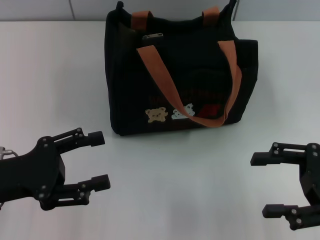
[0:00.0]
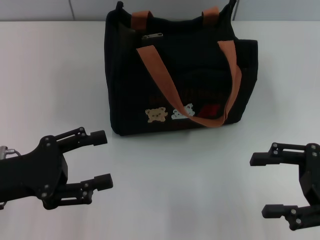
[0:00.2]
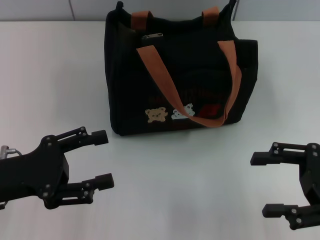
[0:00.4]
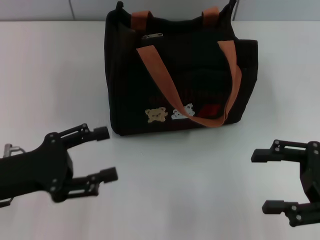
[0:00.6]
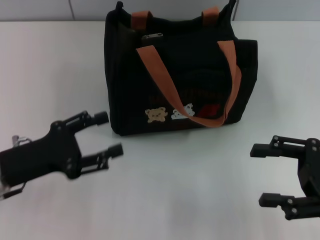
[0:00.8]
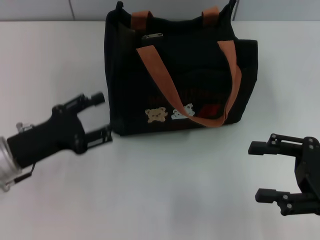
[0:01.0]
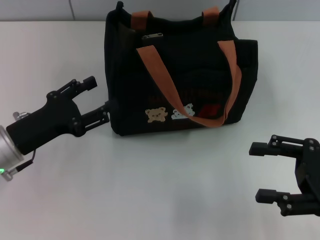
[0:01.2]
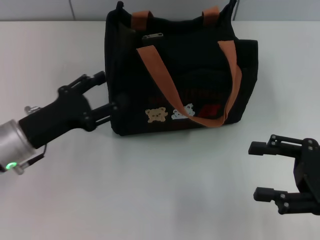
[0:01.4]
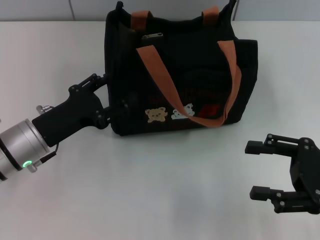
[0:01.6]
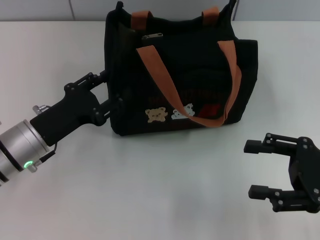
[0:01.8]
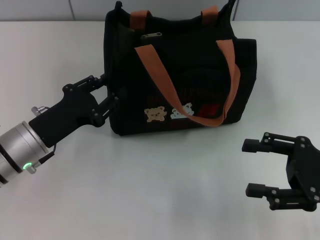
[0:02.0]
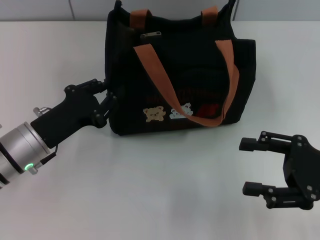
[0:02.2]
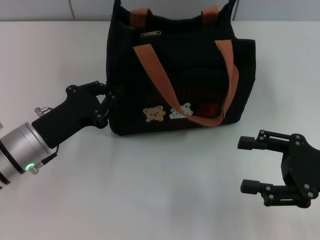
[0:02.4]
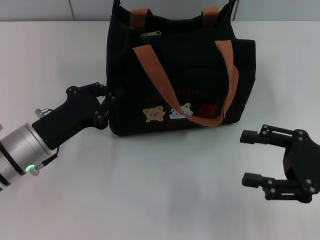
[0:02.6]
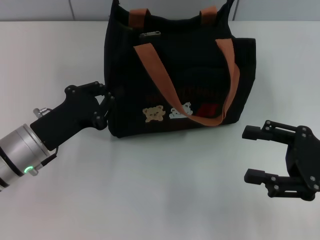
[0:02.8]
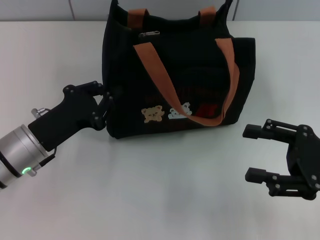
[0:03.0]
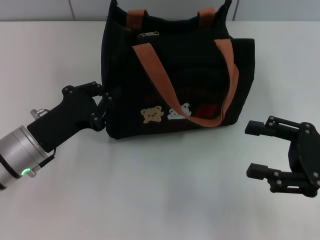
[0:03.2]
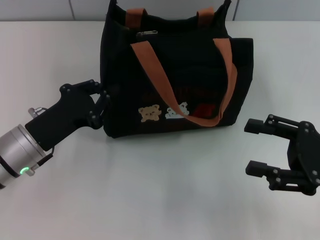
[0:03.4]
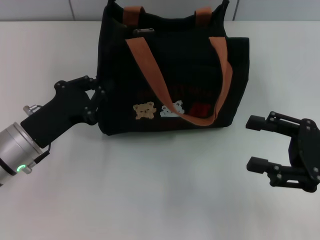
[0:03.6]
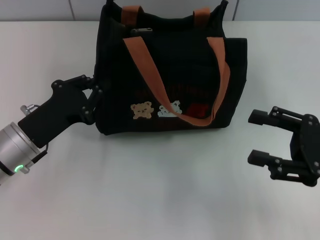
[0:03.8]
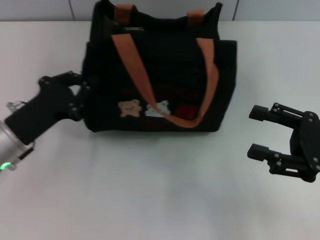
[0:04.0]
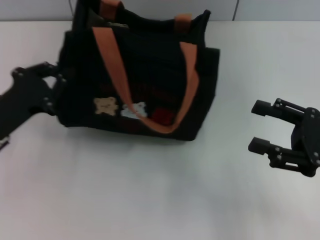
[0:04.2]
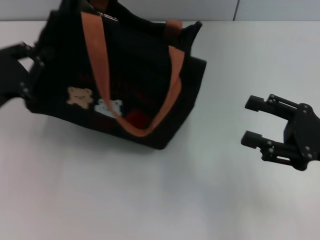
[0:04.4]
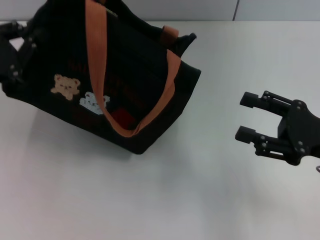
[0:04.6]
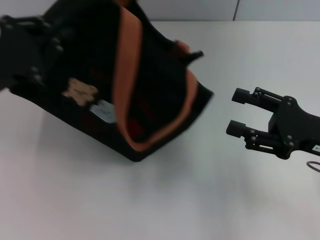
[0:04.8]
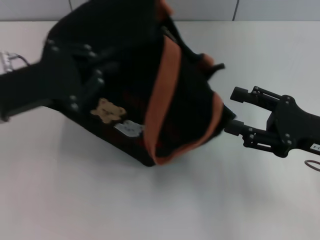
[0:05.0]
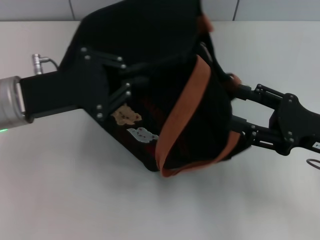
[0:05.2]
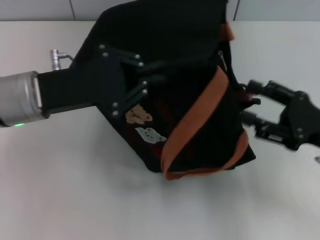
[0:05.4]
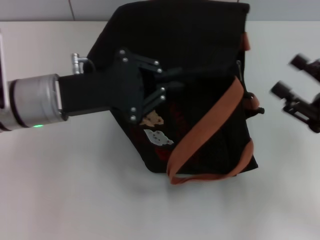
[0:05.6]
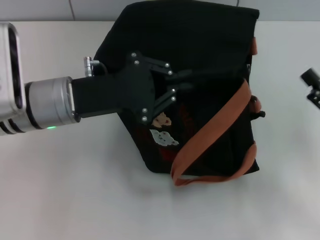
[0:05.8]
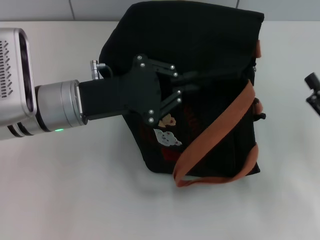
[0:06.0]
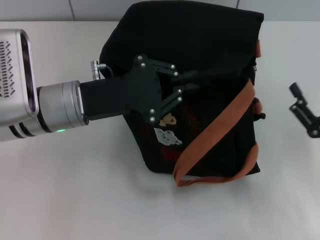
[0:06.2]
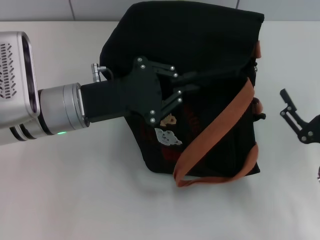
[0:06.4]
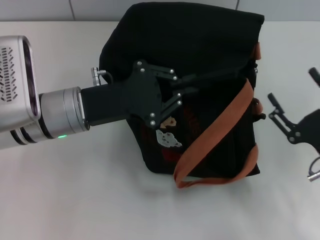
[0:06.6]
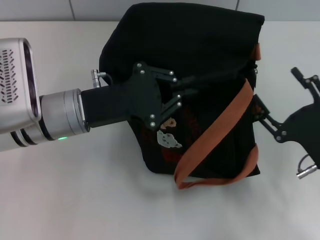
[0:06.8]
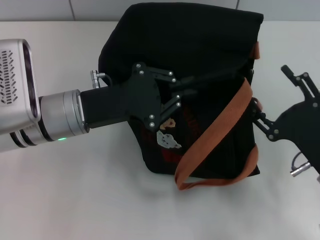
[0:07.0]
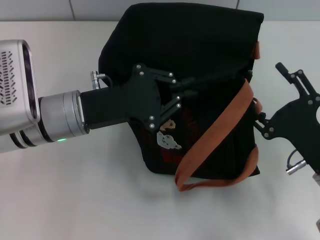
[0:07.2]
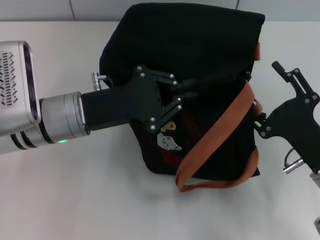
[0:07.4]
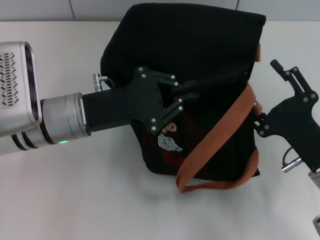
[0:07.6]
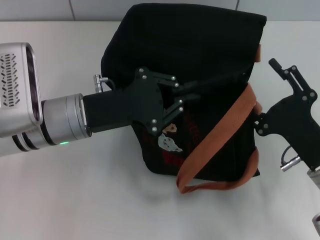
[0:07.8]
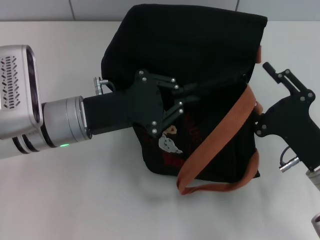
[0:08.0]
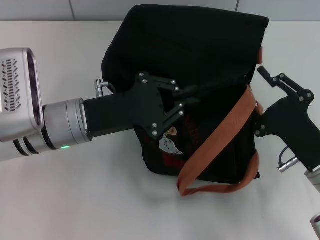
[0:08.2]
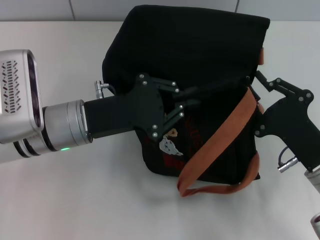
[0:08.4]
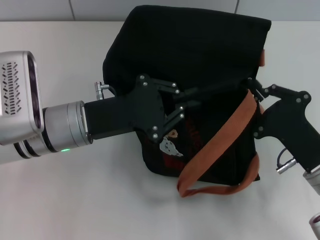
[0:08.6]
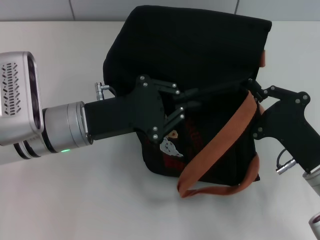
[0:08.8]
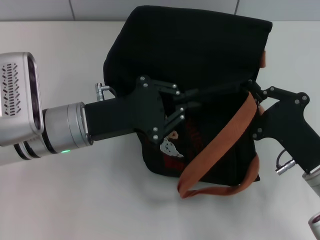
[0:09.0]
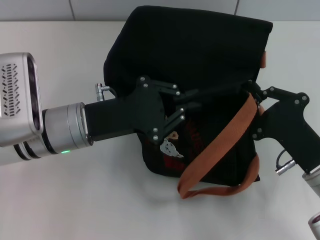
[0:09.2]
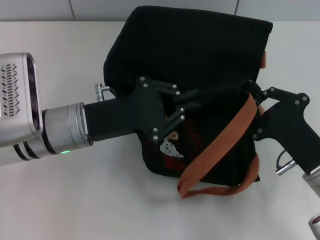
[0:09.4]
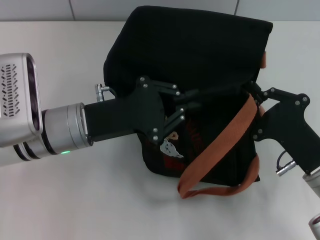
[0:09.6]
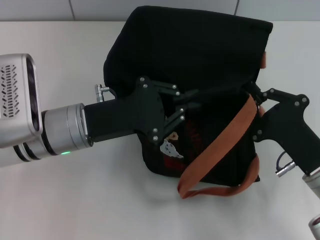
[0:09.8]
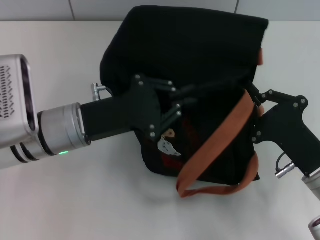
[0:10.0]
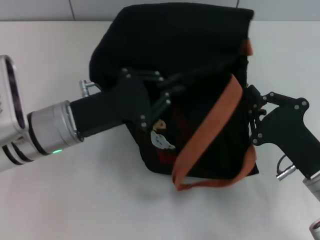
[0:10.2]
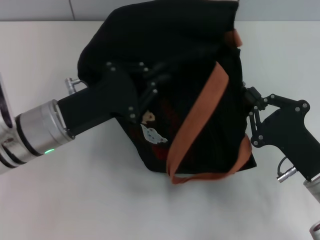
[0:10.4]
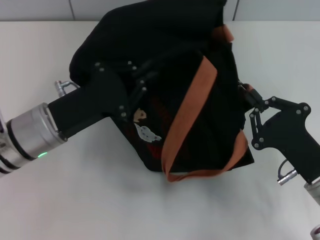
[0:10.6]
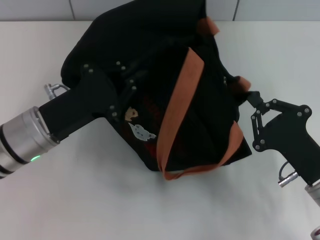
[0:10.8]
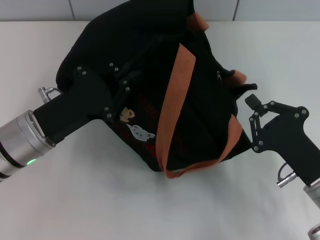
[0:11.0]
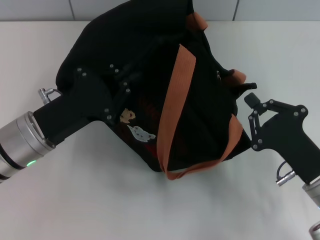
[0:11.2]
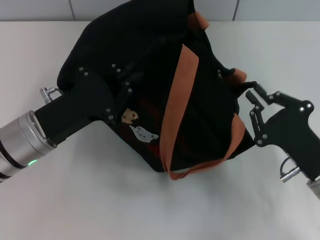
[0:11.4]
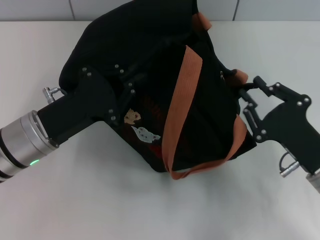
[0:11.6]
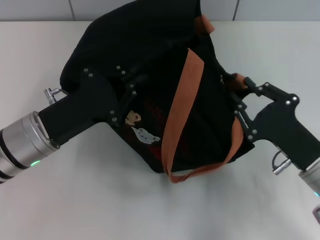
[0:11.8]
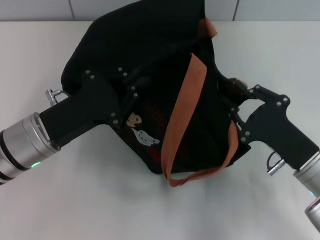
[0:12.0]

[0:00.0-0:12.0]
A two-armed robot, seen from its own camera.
0:00.0 to 0:01.6: The left gripper travels forward and to the right by approximately 10 cm.
0:01.6 to 0:03.0: The left gripper closes up.
0:03.0 to 0:04.4: The left gripper is displaced to the left and upward by roughly 10 cm.
0:04.4 to 0:06.0: The right gripper changes place by approximately 5 cm. The left gripper goes roughly 15 cm to the right.
0:06.0 to 0:07.6: The right gripper shifts roughly 5 cm to the left.
0:07.6 to 0:09.0: The right gripper closes its fingers.
0:10.4 to 0:12.0: The right gripper opens its fingers.

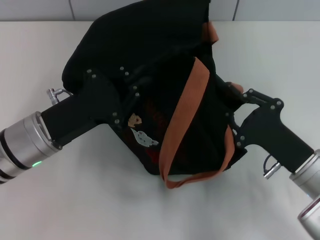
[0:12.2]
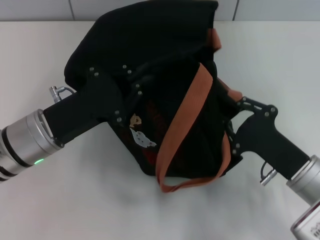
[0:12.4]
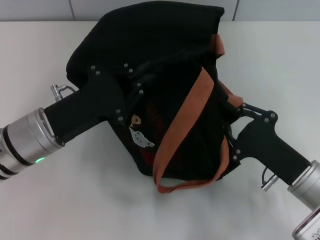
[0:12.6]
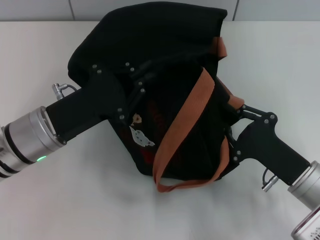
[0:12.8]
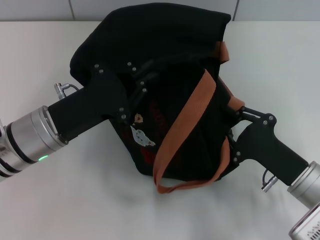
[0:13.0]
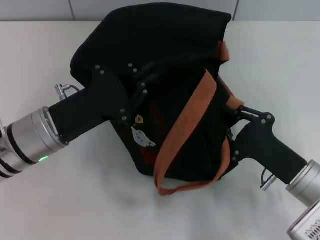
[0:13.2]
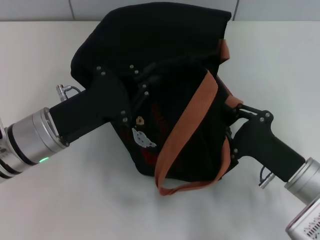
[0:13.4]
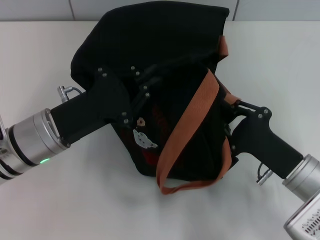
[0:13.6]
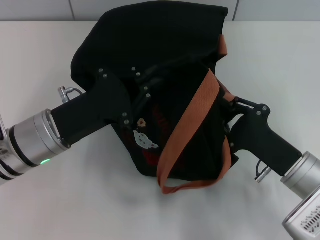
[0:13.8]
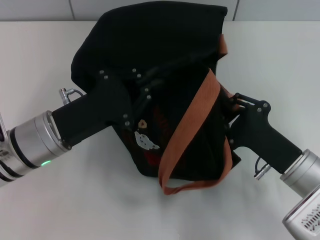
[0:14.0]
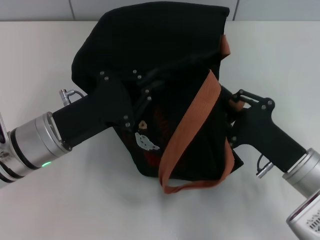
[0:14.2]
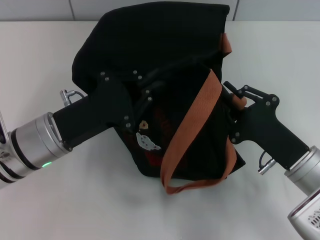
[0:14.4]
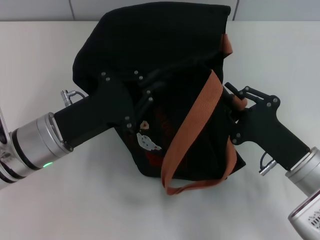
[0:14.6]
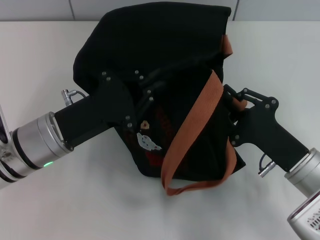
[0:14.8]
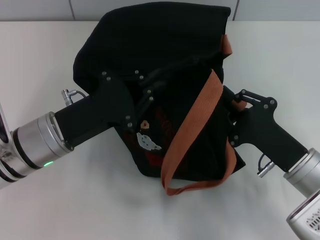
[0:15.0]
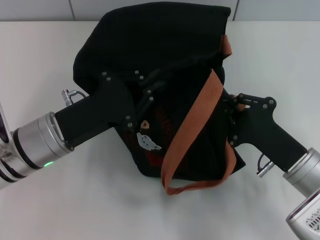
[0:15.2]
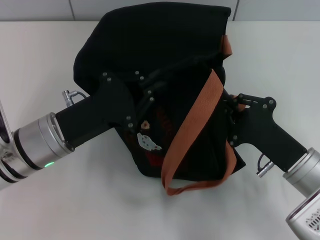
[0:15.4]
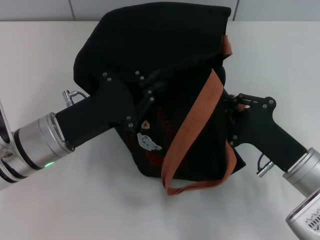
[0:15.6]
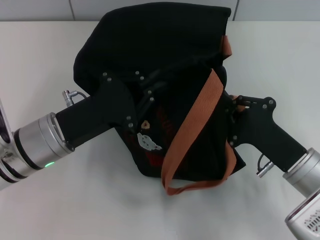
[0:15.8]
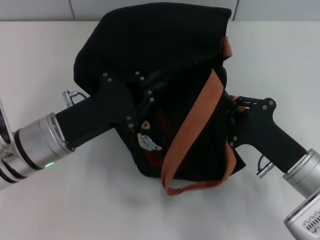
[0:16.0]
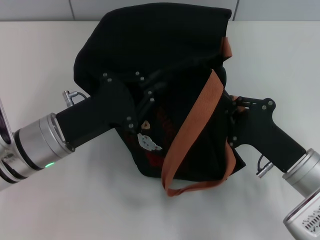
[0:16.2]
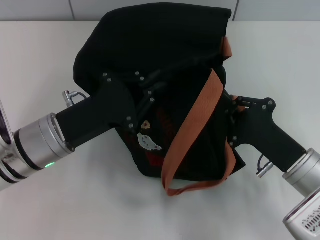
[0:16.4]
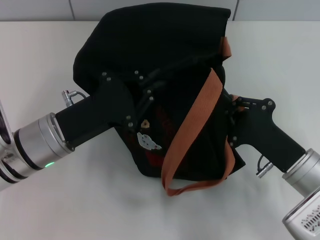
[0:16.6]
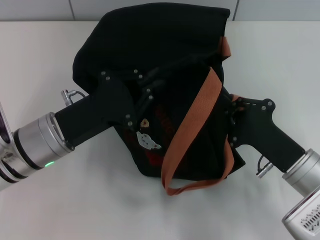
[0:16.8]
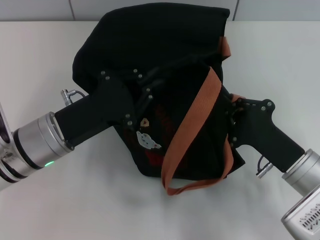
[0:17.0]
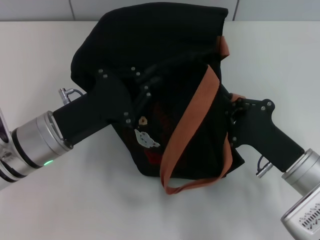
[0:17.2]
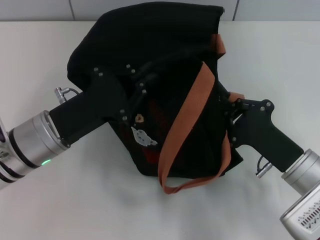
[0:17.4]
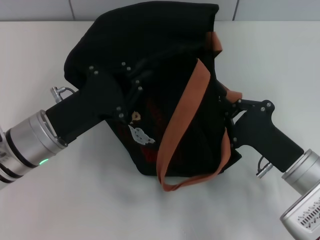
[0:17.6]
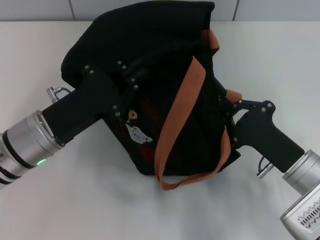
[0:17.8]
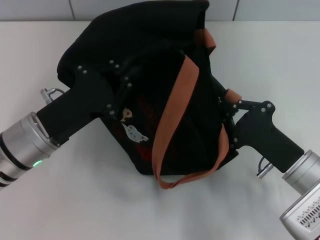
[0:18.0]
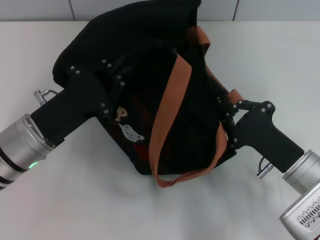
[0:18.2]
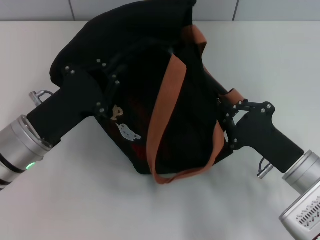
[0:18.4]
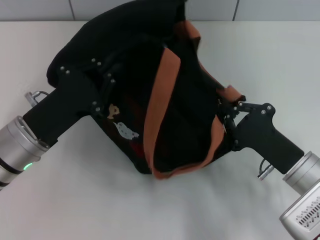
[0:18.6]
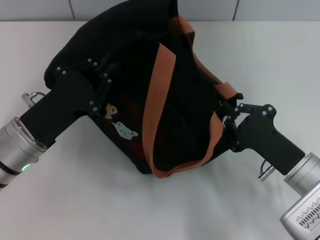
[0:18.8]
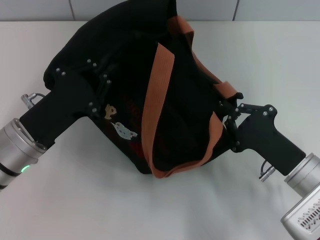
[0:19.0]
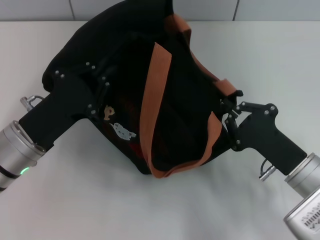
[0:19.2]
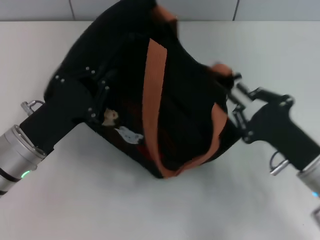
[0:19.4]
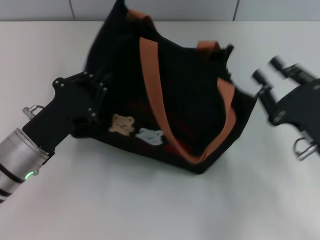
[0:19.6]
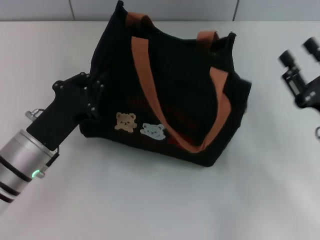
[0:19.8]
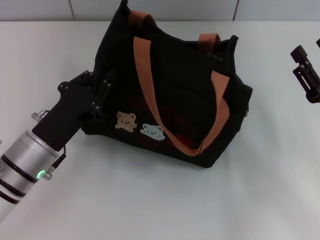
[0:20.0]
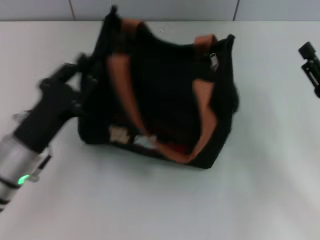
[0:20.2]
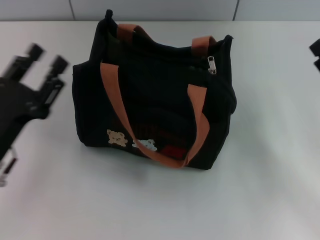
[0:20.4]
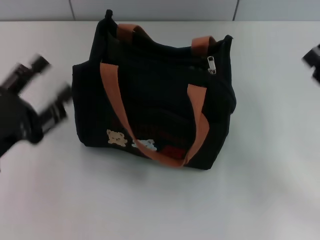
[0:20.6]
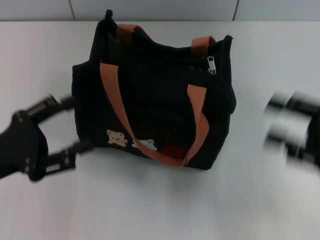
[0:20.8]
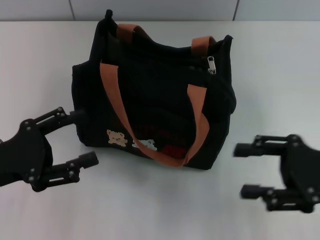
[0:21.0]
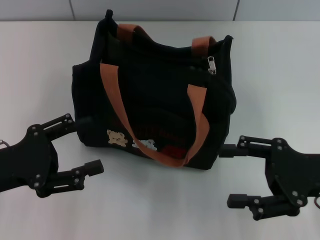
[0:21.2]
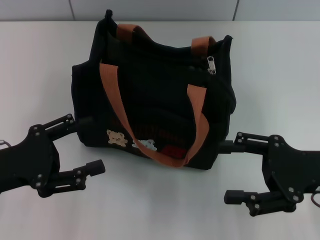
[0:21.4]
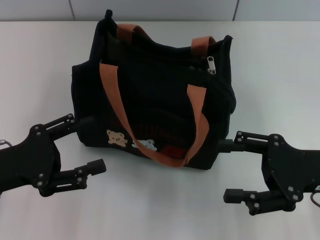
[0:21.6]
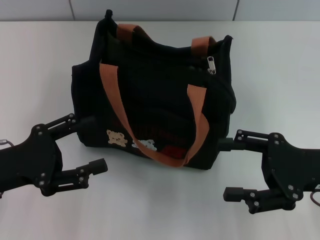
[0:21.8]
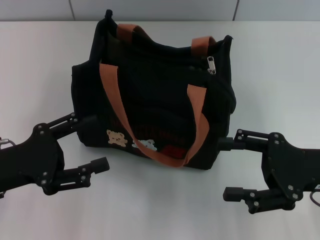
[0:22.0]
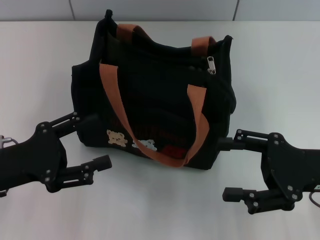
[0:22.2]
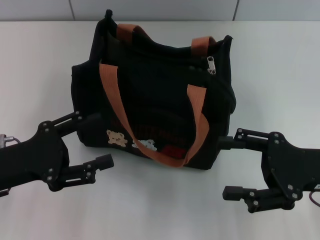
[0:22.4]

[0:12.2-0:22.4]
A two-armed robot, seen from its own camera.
Step, 0:12.2 to 0:19.4: Pull open the zipper with your right hand.
Step, 0:19.6 to 0:20.2: Grab the bag with your left hand.
0:12.2 to 0:15.2: The grippers make only small movements.
0:15.2 to 0:16.6: Both grippers stay put.
0:19.4 to 0:21.0: The left gripper heads to the left, covering roughly 5 cm, and opens its fingers. The right gripper heads upward and to the right, covering approximately 10 cm, and opens its fingers.
0:21.0 to 0:22.4: The grippers stay close to where they were, moving slightly.
